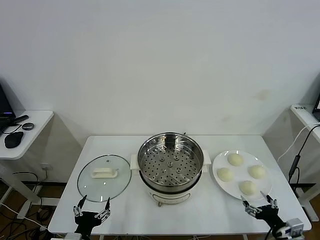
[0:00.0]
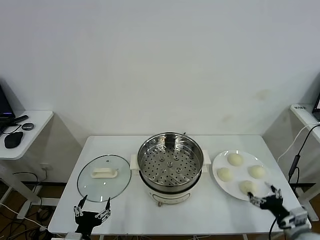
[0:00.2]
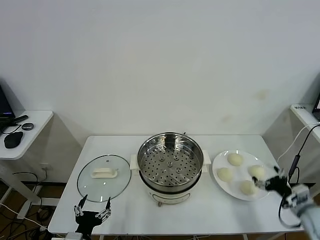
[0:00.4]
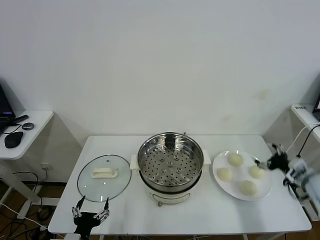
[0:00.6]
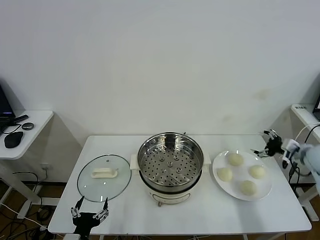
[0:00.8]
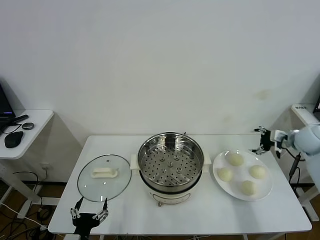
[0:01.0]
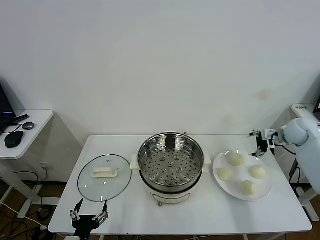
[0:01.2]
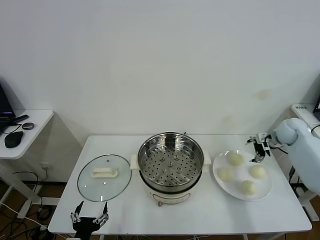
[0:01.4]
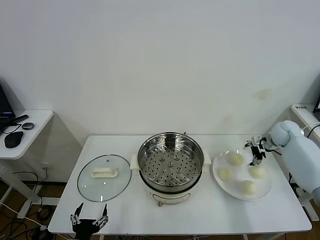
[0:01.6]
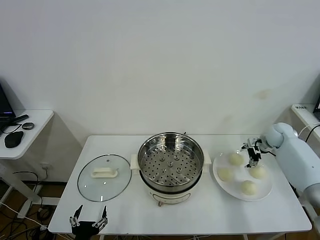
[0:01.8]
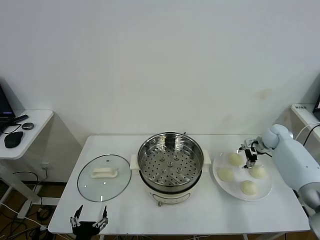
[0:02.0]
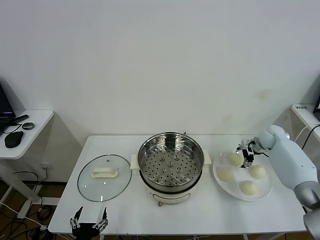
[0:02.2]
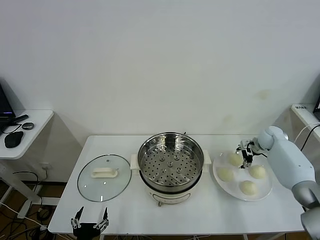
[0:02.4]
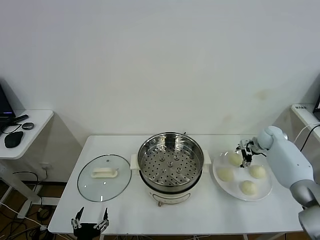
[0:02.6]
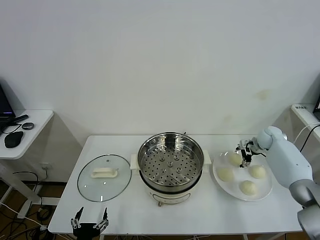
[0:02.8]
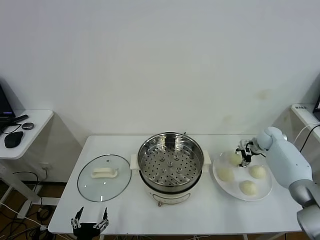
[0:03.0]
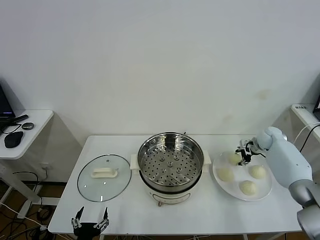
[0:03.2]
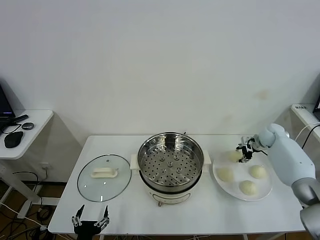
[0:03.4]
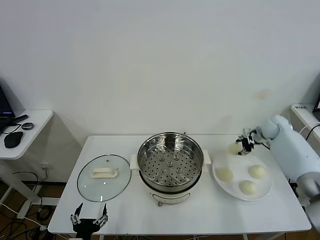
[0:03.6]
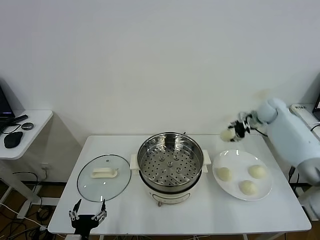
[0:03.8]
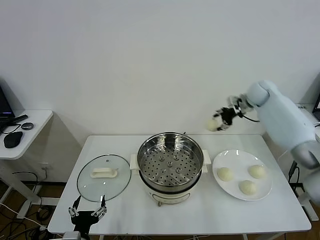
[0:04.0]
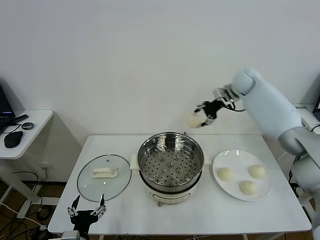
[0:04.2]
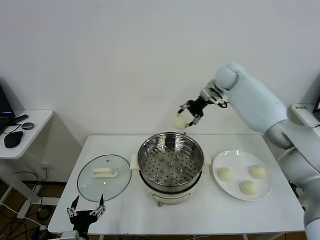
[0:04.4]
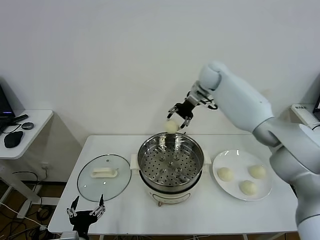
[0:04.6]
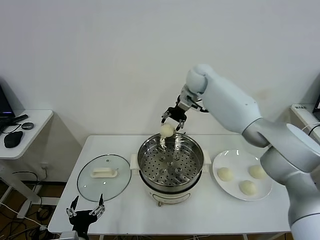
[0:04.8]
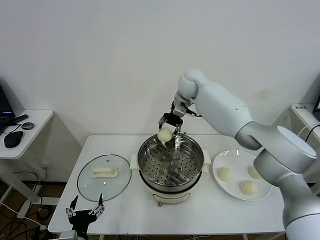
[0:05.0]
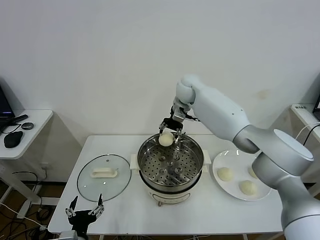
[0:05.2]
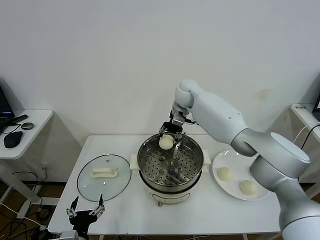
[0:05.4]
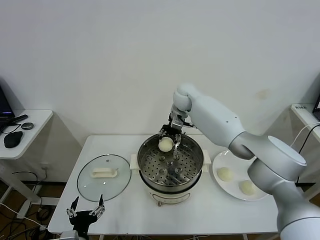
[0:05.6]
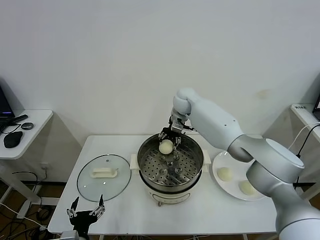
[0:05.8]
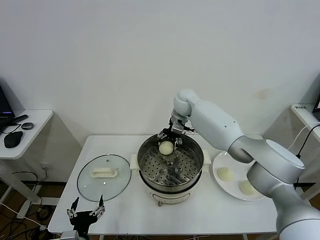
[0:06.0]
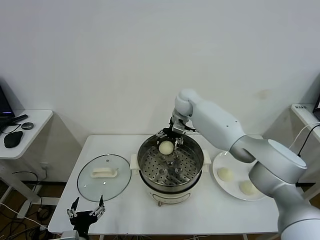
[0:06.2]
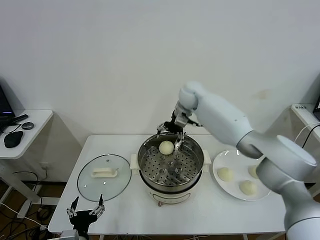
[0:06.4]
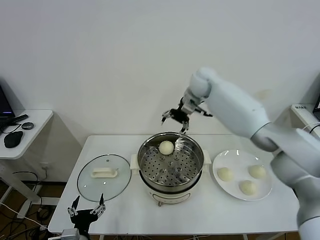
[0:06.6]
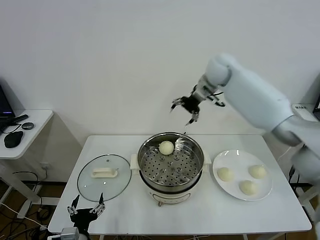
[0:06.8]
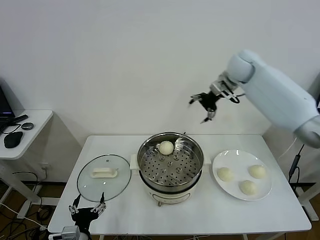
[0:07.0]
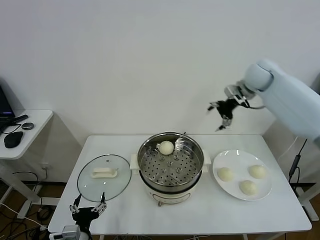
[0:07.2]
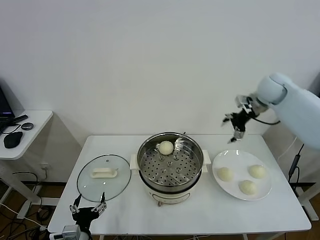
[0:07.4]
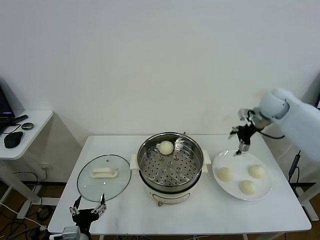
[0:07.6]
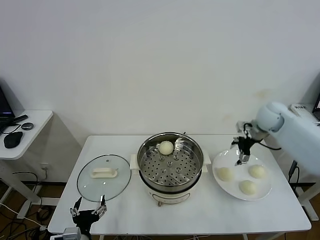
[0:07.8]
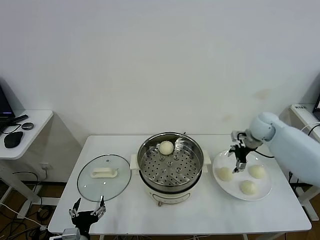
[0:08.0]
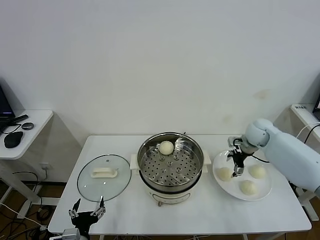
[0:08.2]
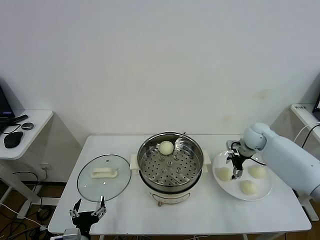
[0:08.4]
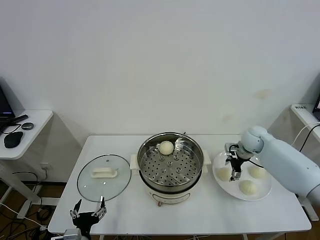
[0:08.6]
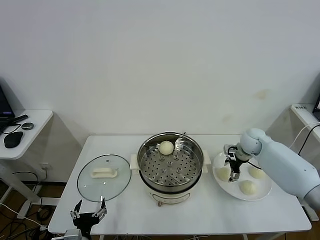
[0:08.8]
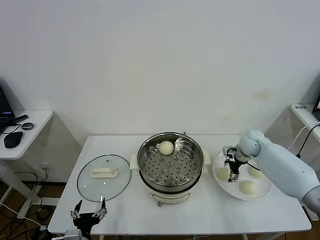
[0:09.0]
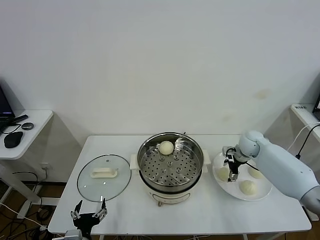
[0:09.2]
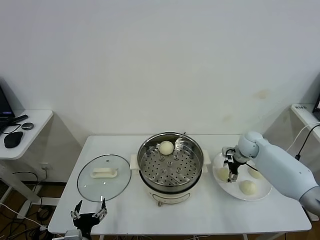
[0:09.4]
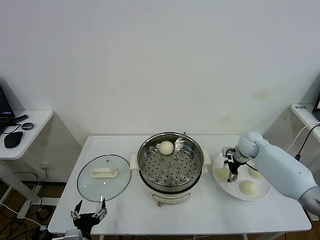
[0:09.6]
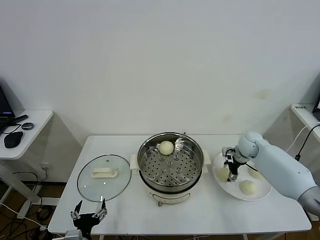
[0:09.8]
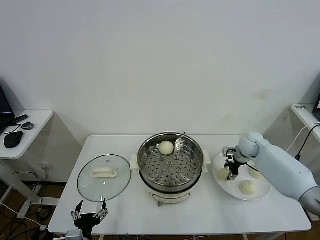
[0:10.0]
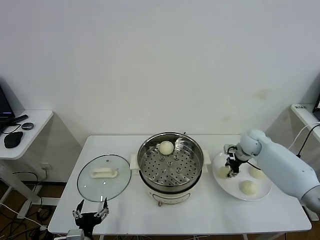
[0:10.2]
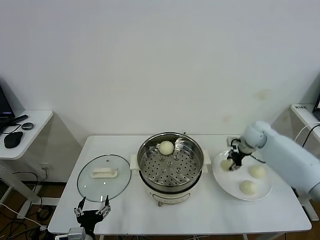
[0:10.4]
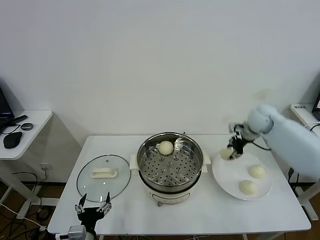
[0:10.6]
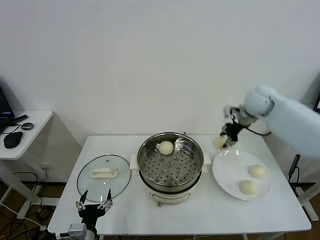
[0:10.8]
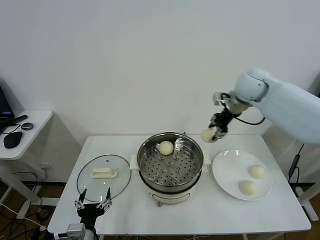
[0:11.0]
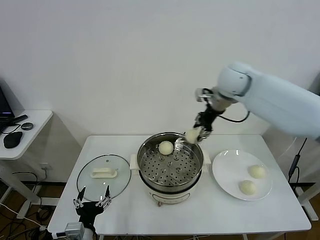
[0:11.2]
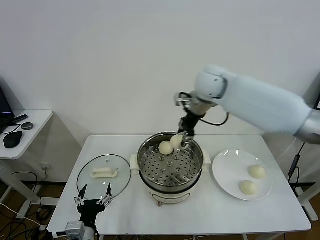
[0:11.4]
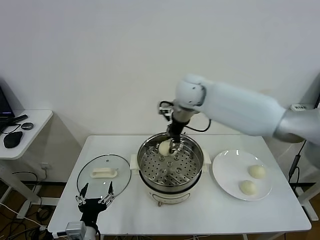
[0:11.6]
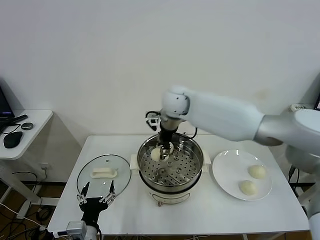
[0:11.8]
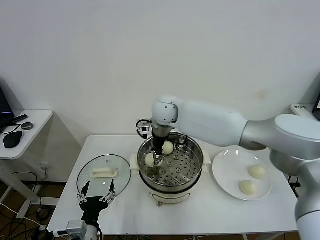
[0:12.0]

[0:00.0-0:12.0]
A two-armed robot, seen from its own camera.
Task of the whole recording: take steamed baozi put them in steamer.
Step, 0:00.0 to 0:03.0: Grasp the baozi in the plate with right gripper.
Step, 0:03.2 to 0:06.4: Place the baozi on the steamer with right gripper.
Step, 0:06.6 to 0:10.0: Grasp the baozi in the plate with right gripper.
0:01.6 to 0:03.0: The right gripper closes its fingers.
0:03.0 to 0:04.4: The right gripper is displaced to the left and upward by approximately 35 cm.
0:04.4 to 0:06.0: The right gripper shifts approximately 15 cm downward and to the left, and opens.
0:06.0 to 0:07.6: The right gripper moves to the right, approximately 30 cm.
0:07.6 to 0:09.0: The right gripper moves downward, some 15 cm.
0:09.0 to 0:10.4: The right gripper shifts some 10 cm upward, and closes its fingers.
0:10.4 to 0:12.0: The right gripper moves to the left, about 35 cm. The left gripper goes some 5 cm upward.

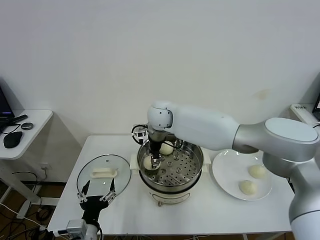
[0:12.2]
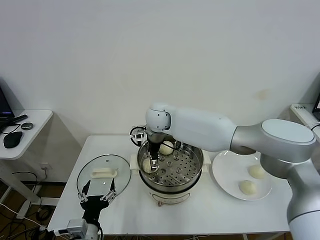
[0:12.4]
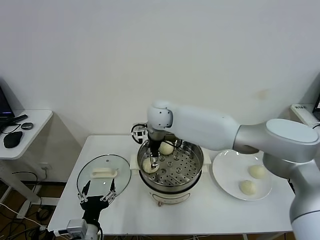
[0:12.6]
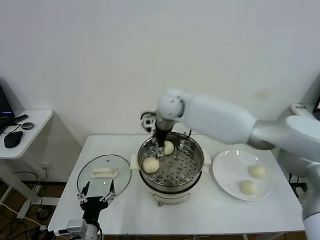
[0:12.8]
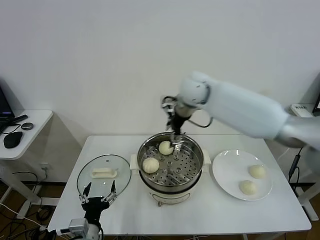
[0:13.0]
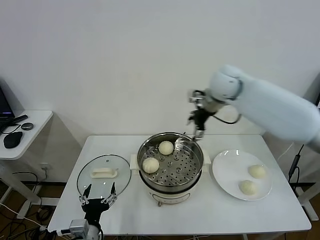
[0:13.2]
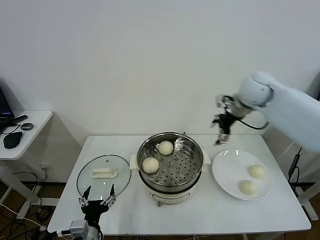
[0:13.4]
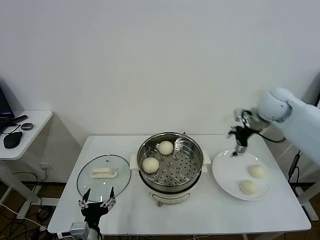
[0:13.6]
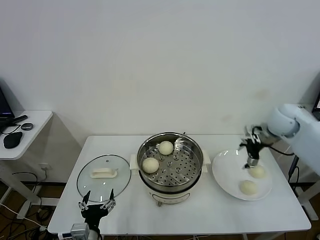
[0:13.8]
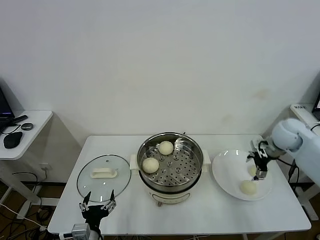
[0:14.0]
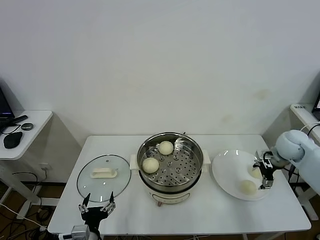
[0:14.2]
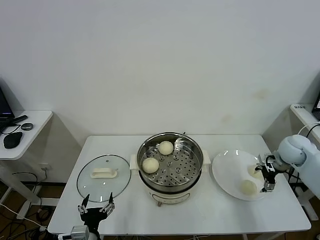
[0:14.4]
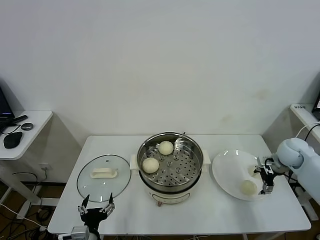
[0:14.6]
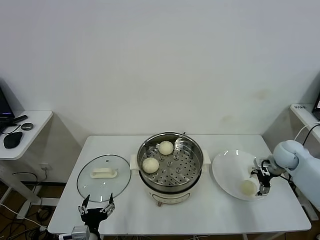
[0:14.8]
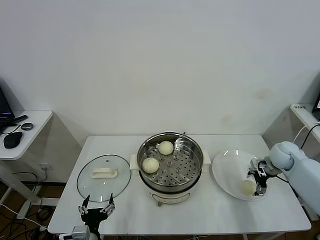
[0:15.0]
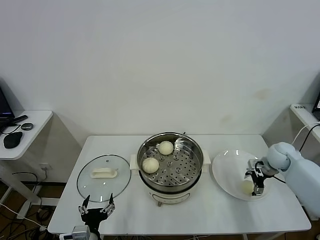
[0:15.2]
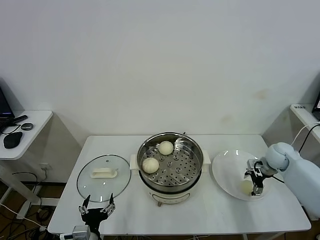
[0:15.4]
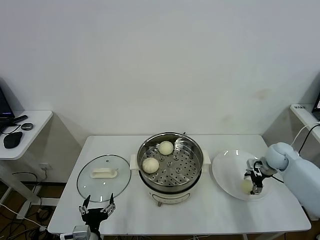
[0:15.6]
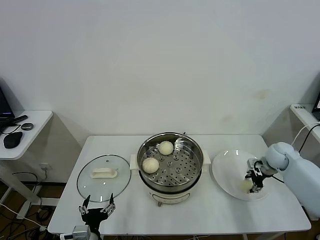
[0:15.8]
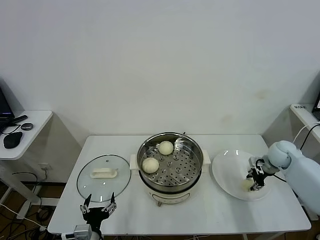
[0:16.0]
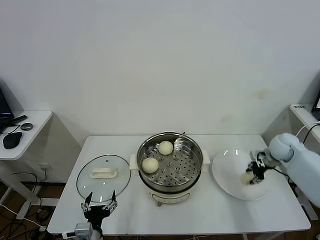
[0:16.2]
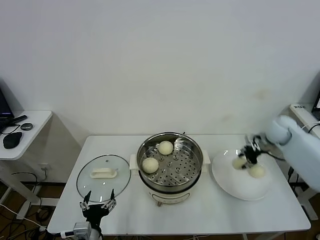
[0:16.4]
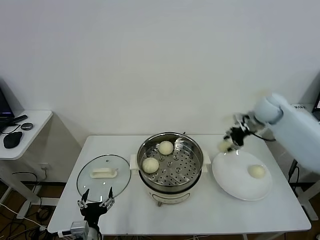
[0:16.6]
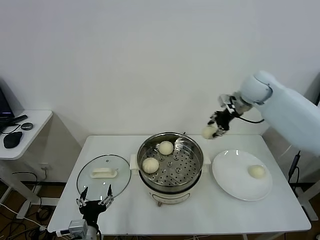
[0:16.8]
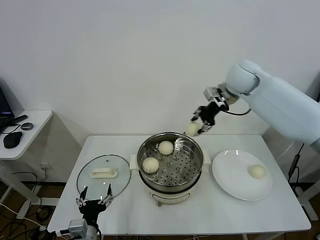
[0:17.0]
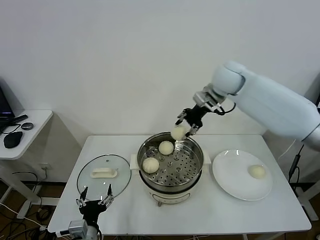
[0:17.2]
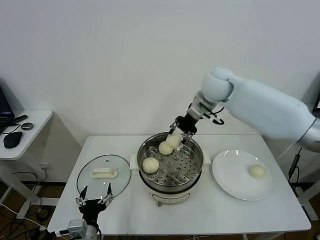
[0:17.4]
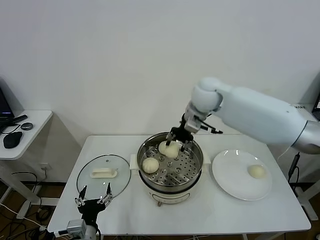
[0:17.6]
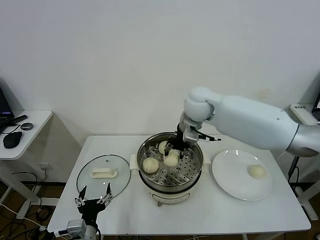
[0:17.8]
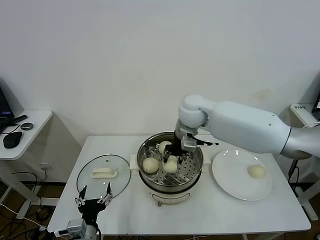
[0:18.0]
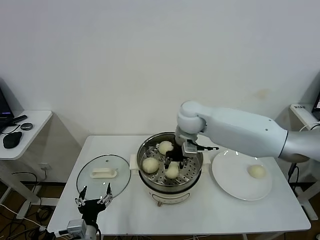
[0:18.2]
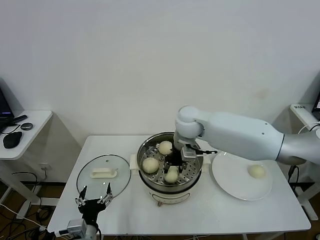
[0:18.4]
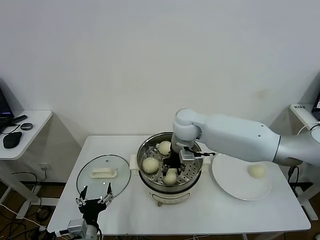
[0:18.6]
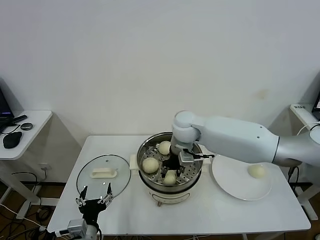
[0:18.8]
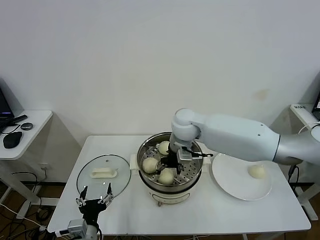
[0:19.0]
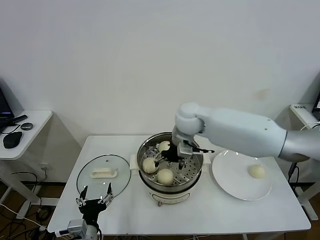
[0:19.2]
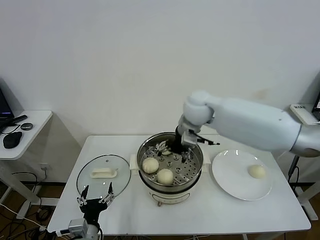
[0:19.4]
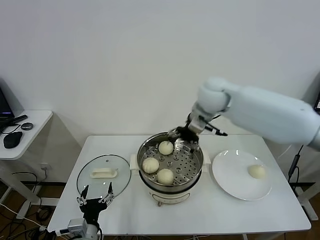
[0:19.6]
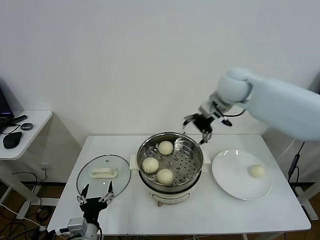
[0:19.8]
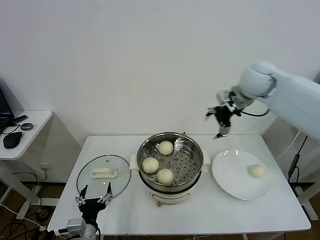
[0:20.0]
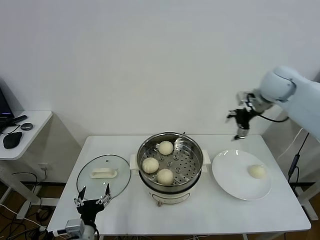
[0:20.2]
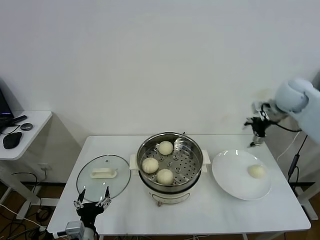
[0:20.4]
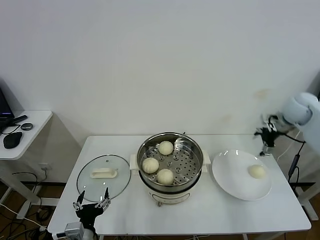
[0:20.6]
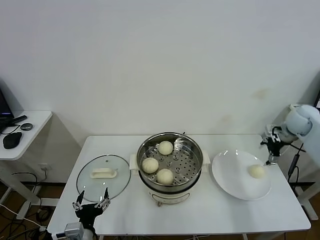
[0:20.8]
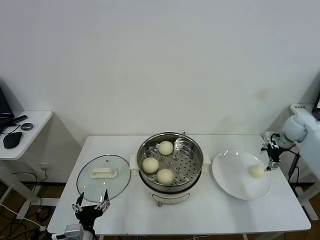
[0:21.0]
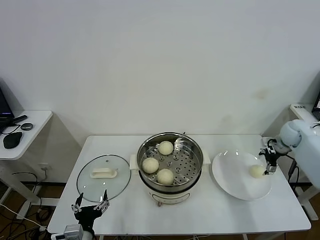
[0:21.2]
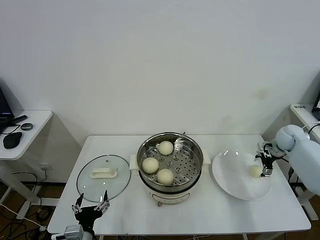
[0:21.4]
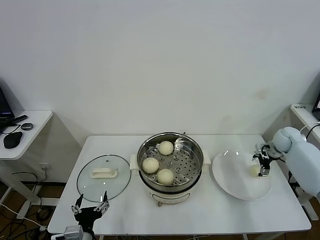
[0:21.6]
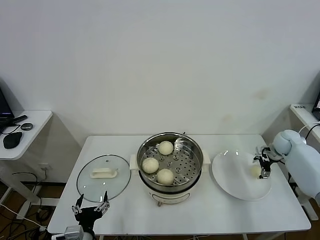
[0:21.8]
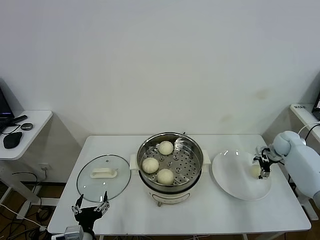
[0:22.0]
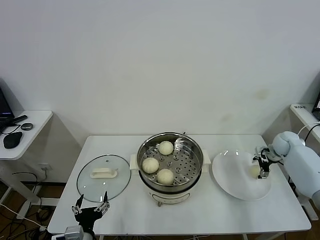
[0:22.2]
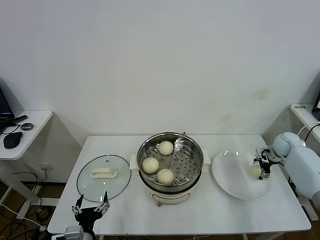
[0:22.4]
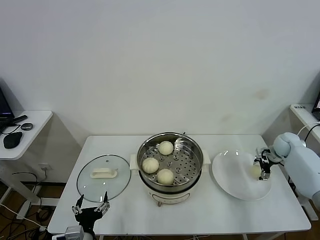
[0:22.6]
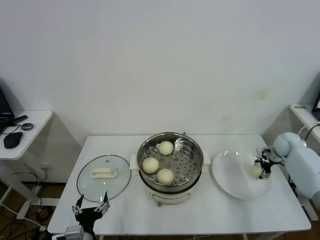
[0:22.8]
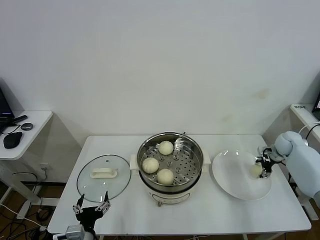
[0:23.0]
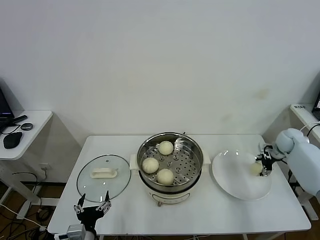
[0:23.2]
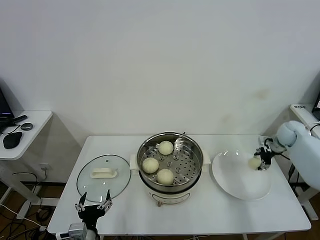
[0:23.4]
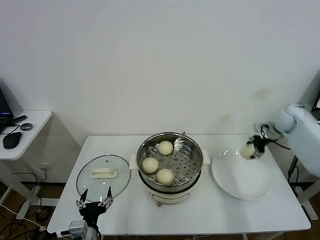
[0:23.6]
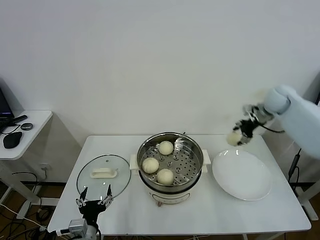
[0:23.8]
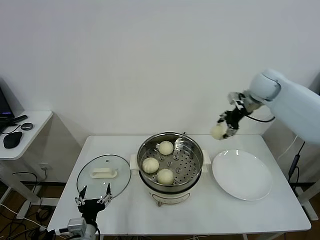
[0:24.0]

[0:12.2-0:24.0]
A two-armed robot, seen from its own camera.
Task of the whole recording: take steamed baozi put them in steamer.
Step, 0:12.8 to 0:15.8: Grasp the baozi in the plate with right gripper.
Step, 0:16.0 to 0:19.4: Place the baozi on the steamer with right gripper.
Step, 0:19.6 to 0:23.0: Grasp the baozi in the plate with right gripper.
0:12.2 to 0:13.6: The right gripper is displaced to the right by roughly 35 cm, and opens.
0:13.6 to 0:15.2: The right gripper goes approximately 20 cm downward and to the right.
0:15.2 to 0:16.6: The right gripper heads upward, to the left and forward, covering about 25 cm, and closes up.
0:16.6 to 0:18.2: The right gripper travels to the left by some 25 cm.
0:18.2 to 0:19.6: The right gripper travels upward and to the right by approximately 10 cm, and opens up.
0:19.6 to 0:21.0: The right gripper travels to the right and downward by roughly 35 cm.
0:21.0 to 0:22.6: The right gripper goes roughly 10 cm downward.
0:22.6 to 0:24.0: The right gripper travels upward and to the left by some 30 cm, and closes its fingers.
